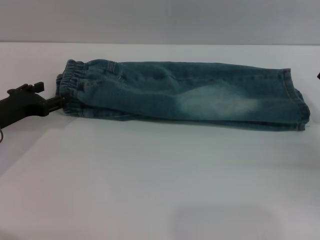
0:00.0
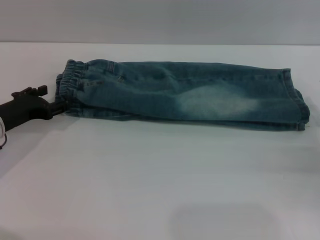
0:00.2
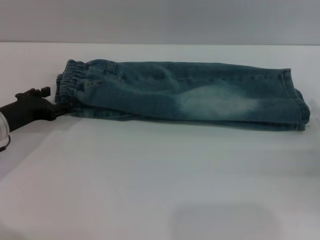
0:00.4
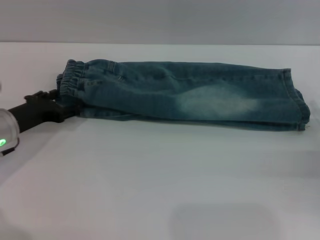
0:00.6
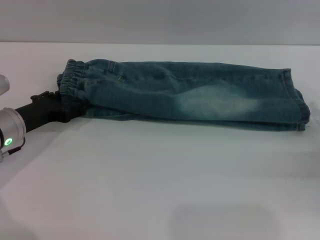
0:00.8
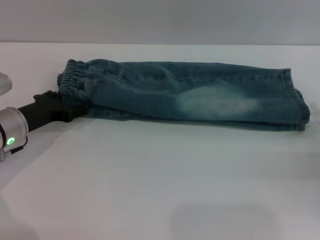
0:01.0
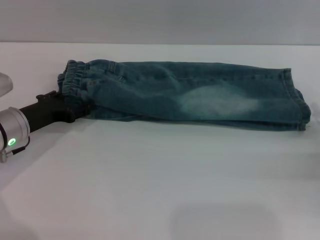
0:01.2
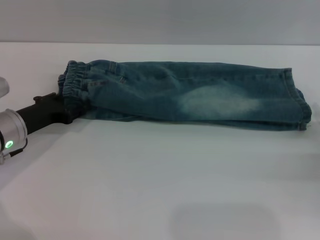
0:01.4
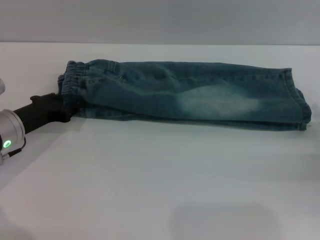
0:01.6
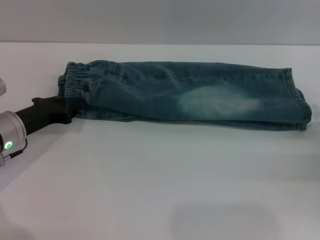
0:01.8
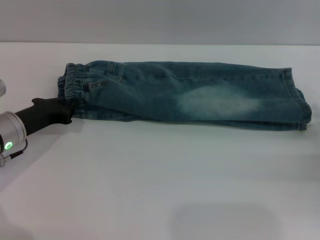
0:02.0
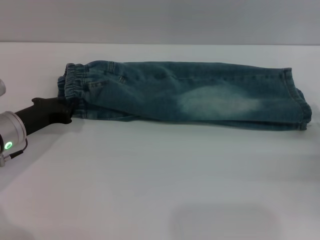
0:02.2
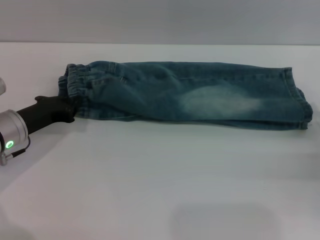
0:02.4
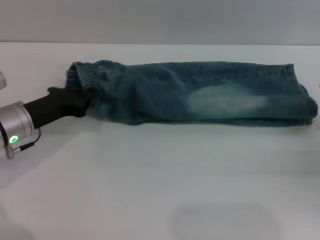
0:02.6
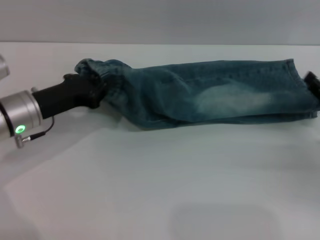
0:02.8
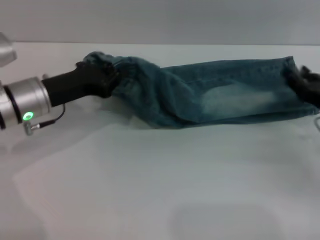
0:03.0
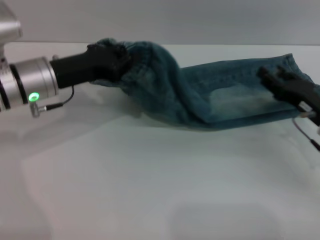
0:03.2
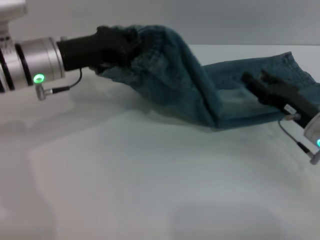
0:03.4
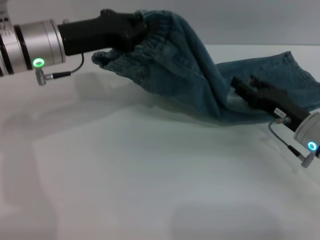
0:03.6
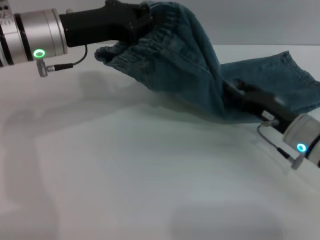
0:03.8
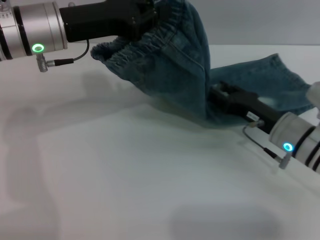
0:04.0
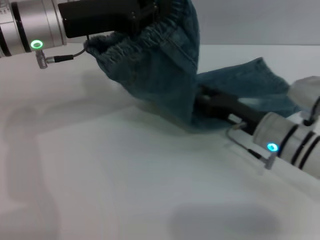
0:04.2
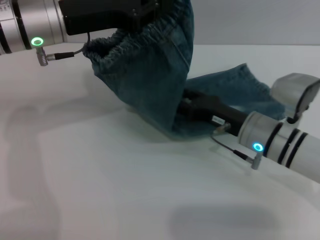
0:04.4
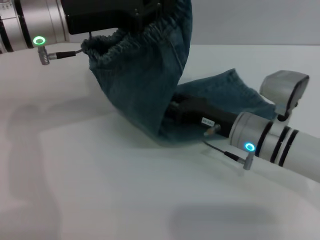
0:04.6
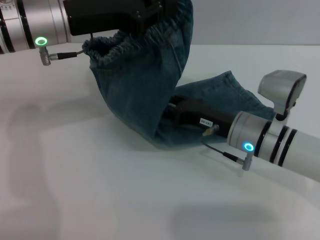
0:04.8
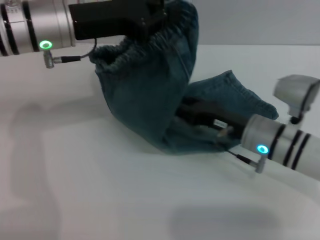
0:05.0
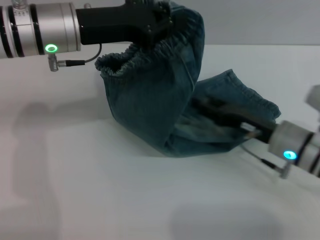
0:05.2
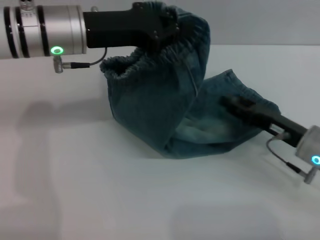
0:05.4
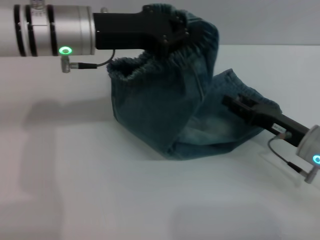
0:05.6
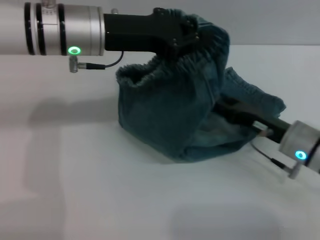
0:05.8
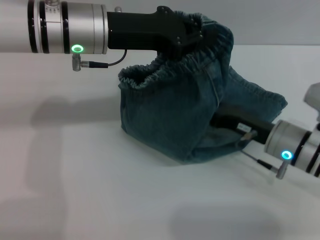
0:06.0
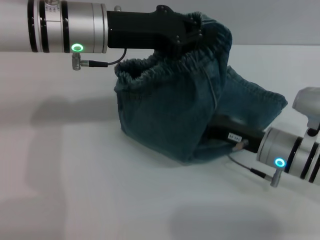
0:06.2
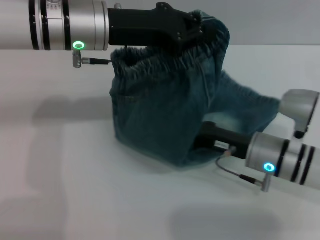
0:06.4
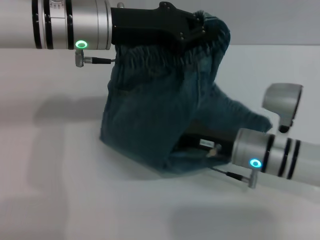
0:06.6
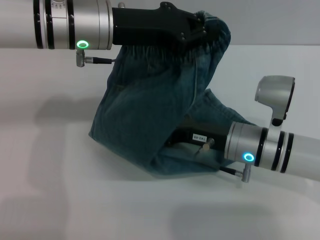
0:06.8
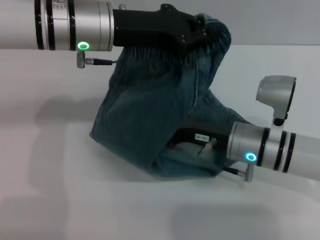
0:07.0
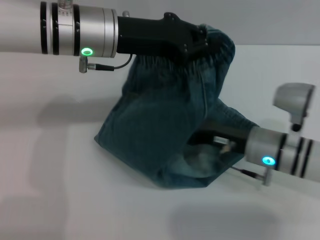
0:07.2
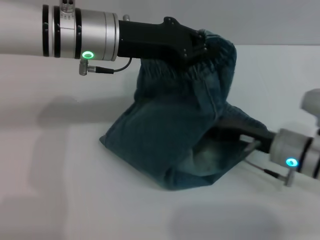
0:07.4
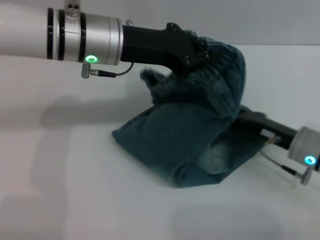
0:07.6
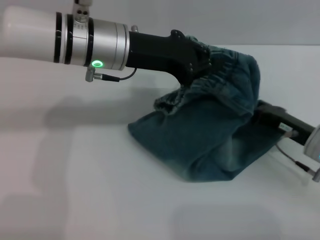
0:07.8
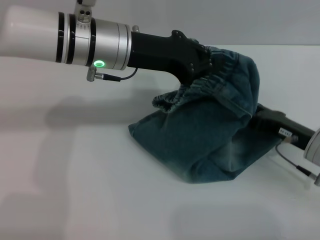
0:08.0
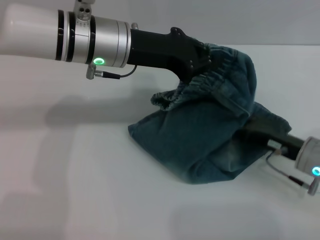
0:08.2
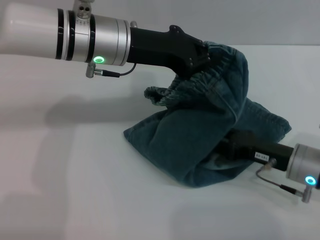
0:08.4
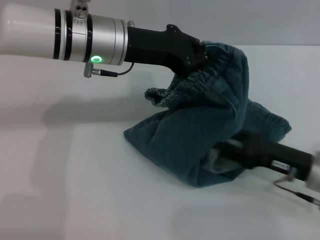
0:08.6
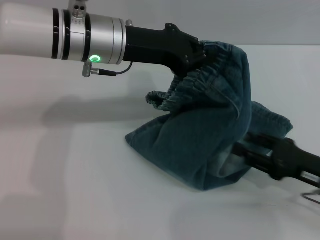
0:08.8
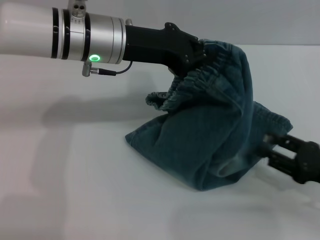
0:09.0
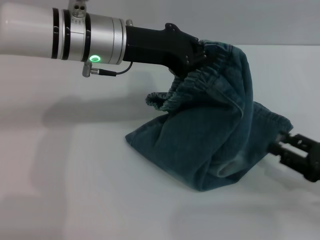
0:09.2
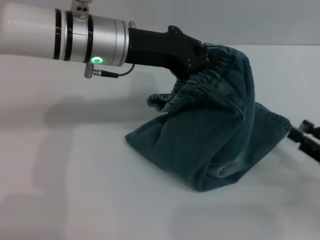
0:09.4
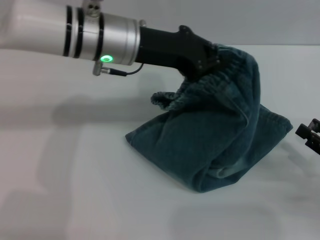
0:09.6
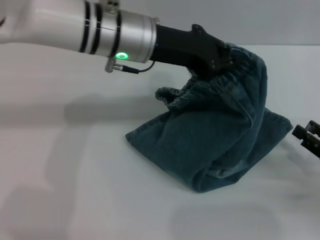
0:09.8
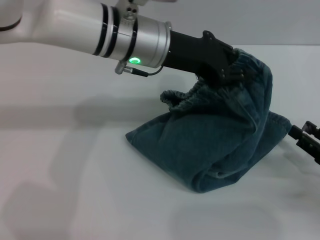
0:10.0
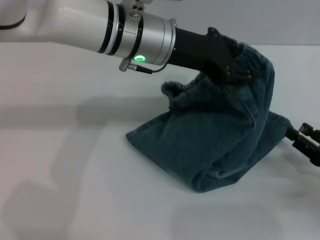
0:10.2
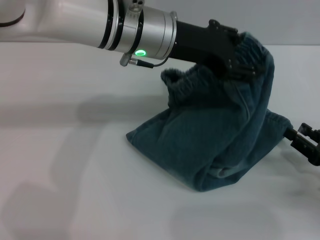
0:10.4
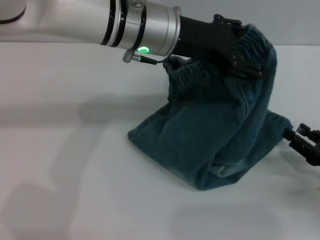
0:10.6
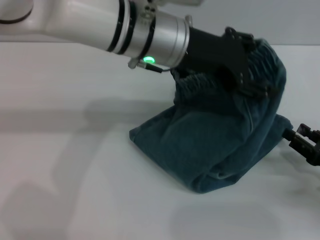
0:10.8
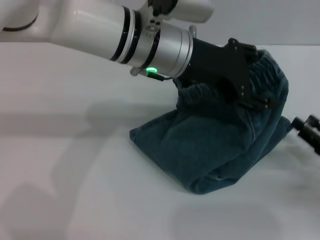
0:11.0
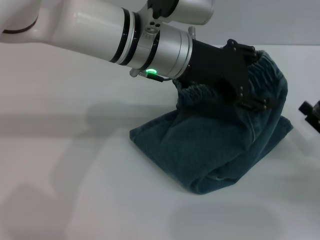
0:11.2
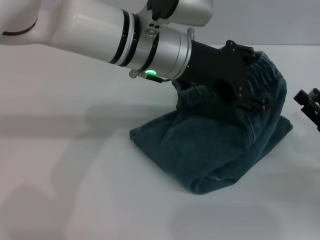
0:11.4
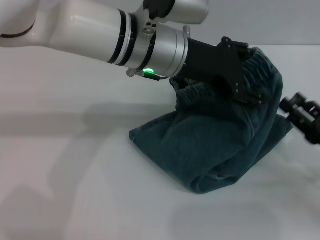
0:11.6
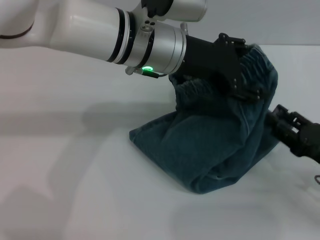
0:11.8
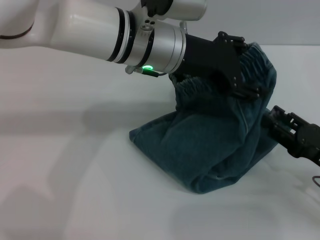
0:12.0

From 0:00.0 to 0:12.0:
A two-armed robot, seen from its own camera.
From 0:00.0 to 0:01.6: The grippers stay close to where they were, moving slightly.
From 0:01.6 to 0:03.0: The right gripper travels to the left by approximately 5 cm; the left gripper heads upward, covering about 5 cm, and closes.
From 0:03.0 to 0:04.4: The right gripper travels to the left by roughly 15 cm, while the left gripper moves upward, about 10 cm.
From 0:04.4 to 0:06.0: The left gripper travels to the right by approximately 5 cm.
From 0:07.6 to 0:09.0: The right gripper moves backward and to the right, some 10 cm.
From 0:09.0 to 0:10.4: The left gripper travels to the right by some 5 cm, and opens its fingers.
From 0:10.4 to 0:12.0: The left gripper opens up.

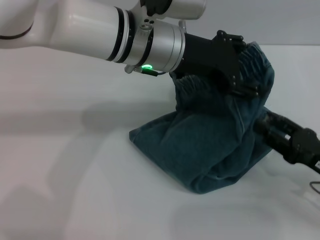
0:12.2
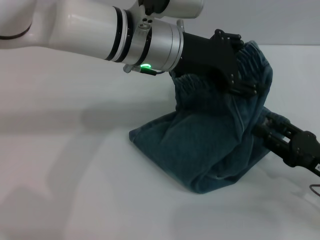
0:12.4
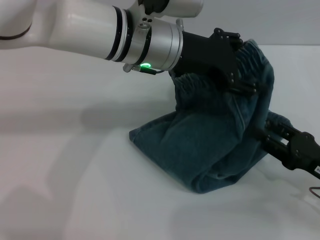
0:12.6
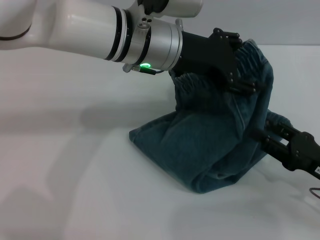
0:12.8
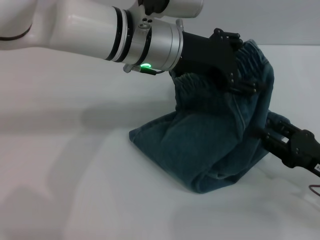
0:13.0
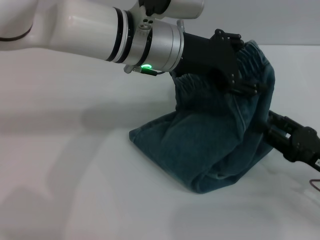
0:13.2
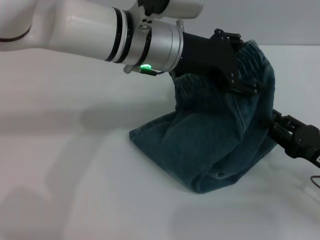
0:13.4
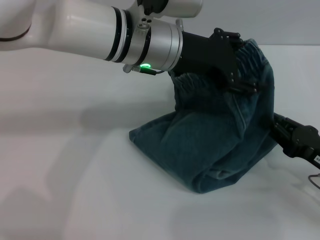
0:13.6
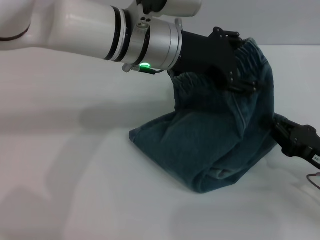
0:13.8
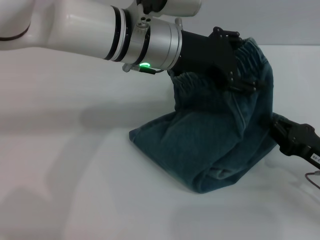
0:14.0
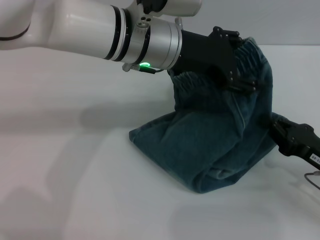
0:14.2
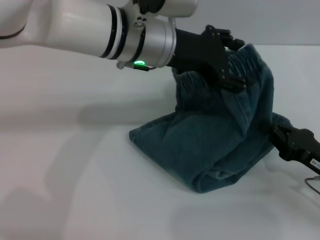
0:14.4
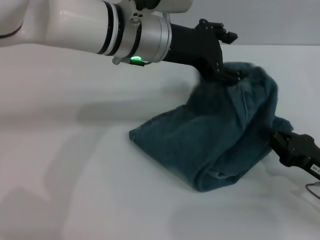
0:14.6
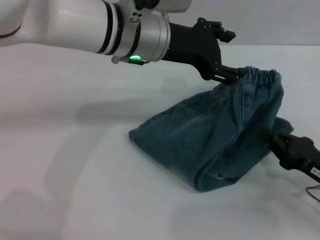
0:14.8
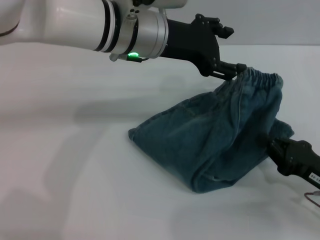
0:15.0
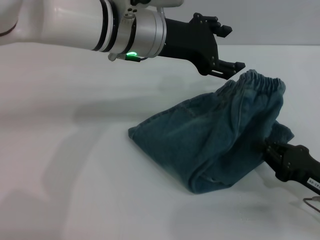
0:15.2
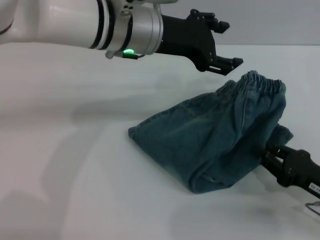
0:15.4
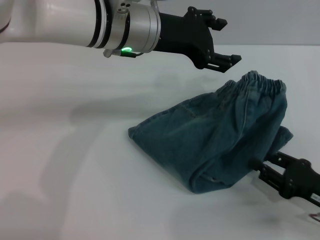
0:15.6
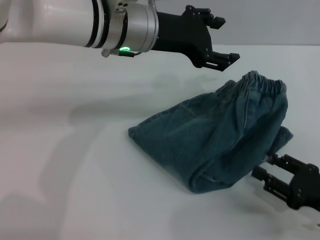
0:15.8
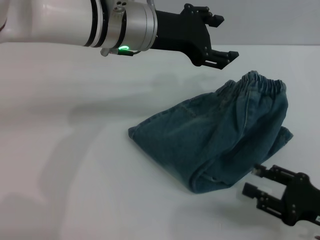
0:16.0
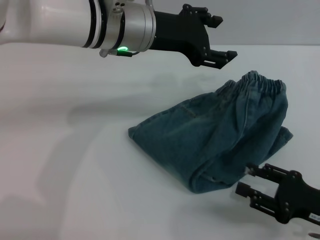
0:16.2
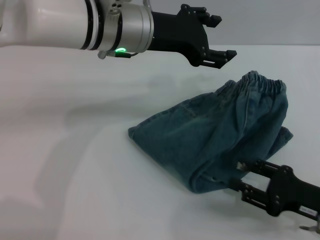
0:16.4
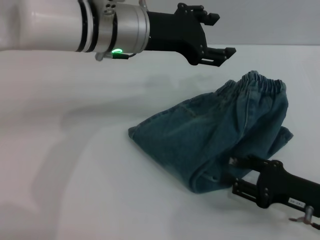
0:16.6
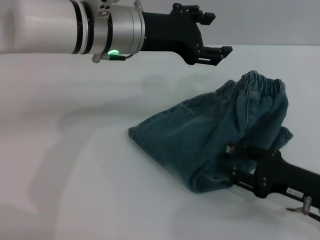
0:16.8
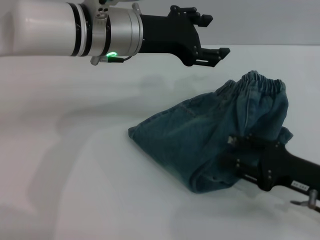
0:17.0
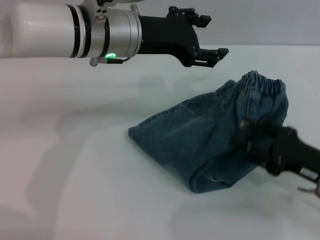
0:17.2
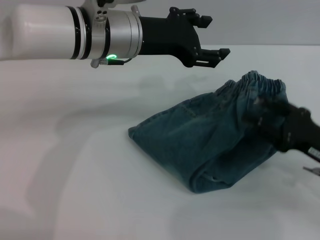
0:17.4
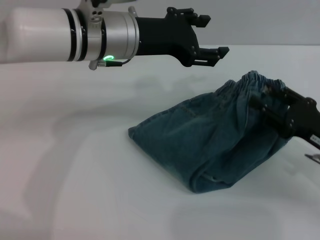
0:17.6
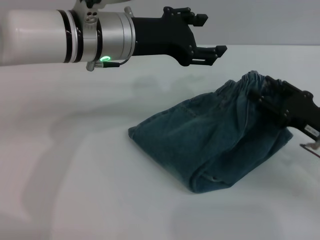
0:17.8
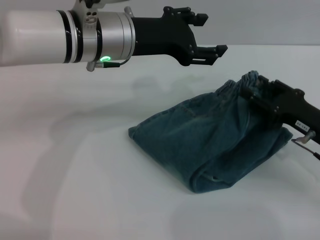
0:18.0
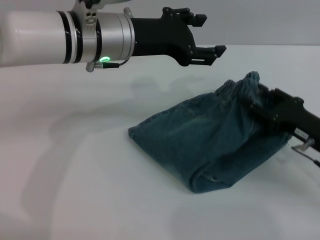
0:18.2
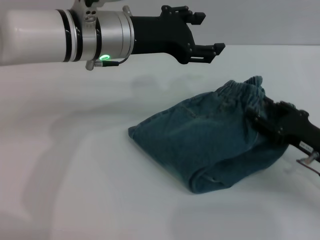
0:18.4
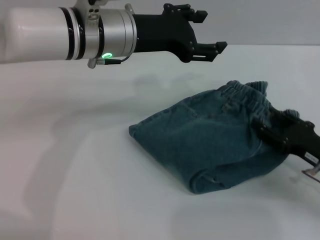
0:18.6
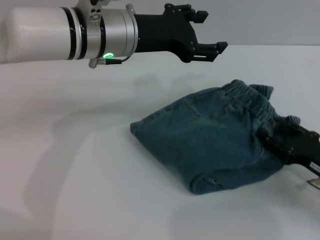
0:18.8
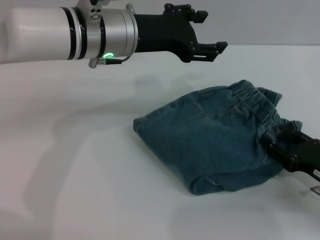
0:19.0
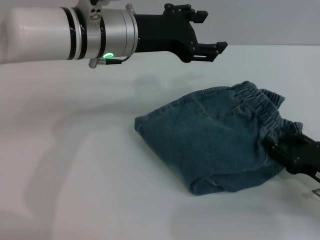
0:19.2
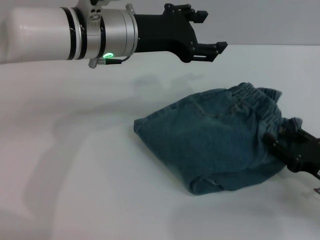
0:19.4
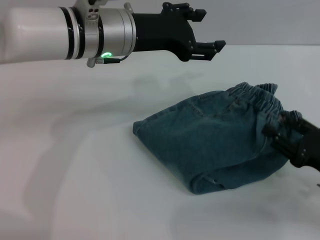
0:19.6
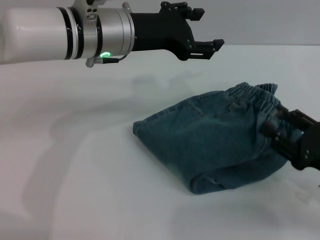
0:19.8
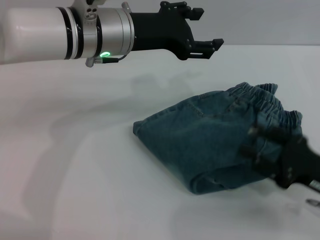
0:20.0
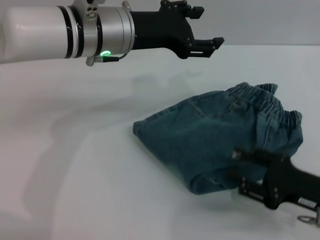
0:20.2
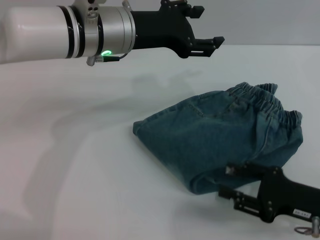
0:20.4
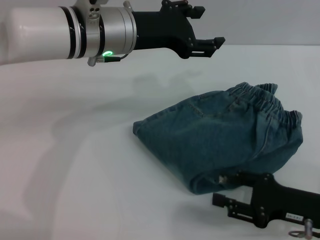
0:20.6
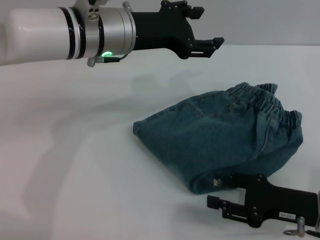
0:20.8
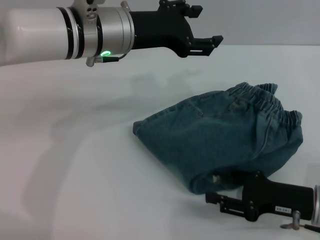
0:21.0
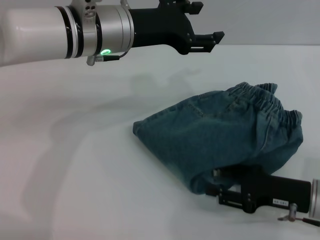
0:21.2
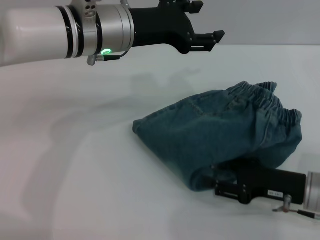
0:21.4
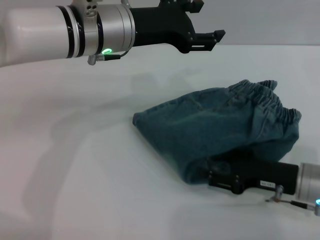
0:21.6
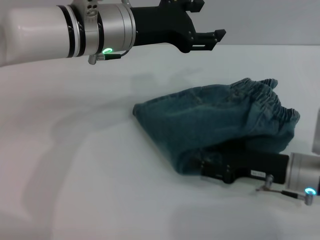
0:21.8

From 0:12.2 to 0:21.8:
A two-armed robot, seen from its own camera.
Step, from 0:12.2 to 0:17.0: Fold the pants from left to right with the left gripper.
From 0:12.2 to 0:13.8: The right gripper closes its fingers.
From 0:15.4 to 0:17.0: The right gripper opens up.
From 0:20.2 to 0:21.8: The right gripper shifts approximately 5 cm forward.

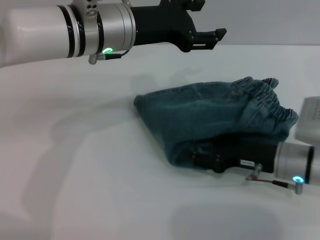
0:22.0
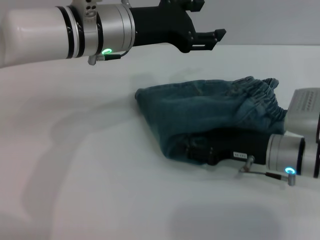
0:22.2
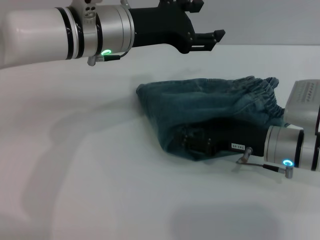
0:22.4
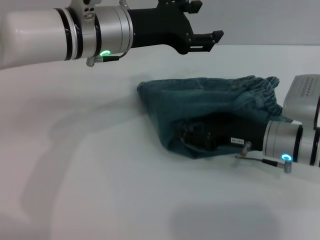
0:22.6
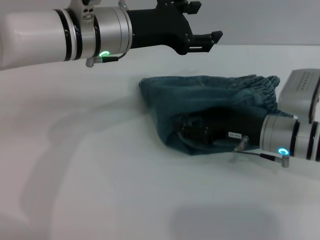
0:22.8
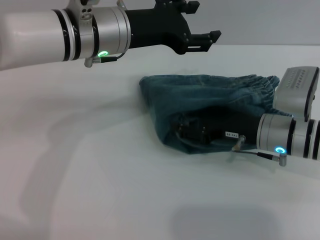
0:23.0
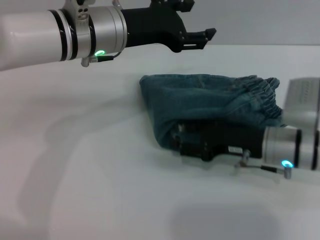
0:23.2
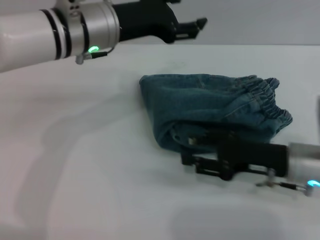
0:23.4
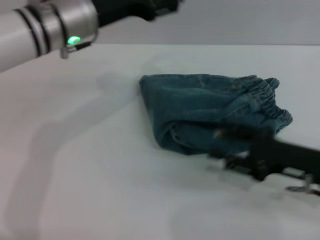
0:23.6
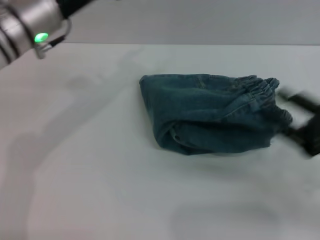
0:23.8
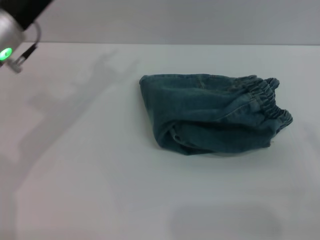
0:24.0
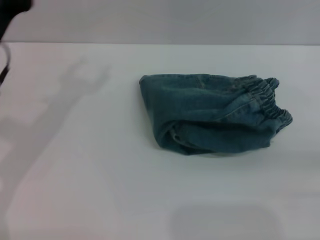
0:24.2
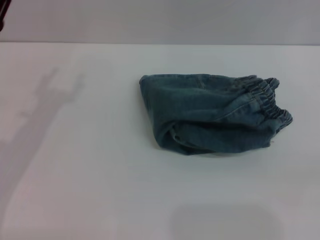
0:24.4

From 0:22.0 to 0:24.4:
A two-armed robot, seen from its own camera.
From 0:22.0 to 0:23.2: The grippers stay close to where they were, moving slightly.
From 0:23.2 to 0:24.4: The left gripper heads to the left, downward and backward, covering roughly 20 cm. The right gripper heads to the right and backward, covering about 25 cm.
